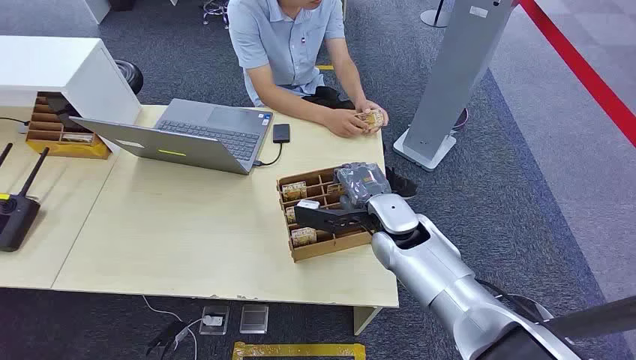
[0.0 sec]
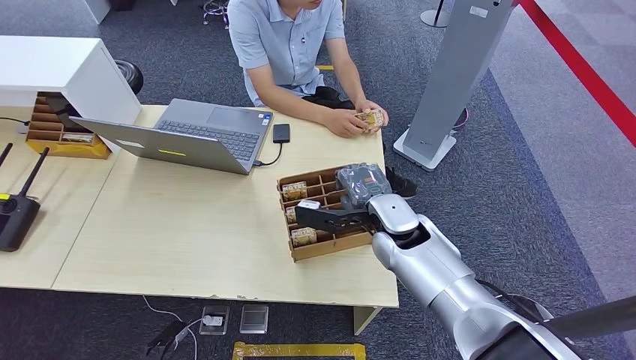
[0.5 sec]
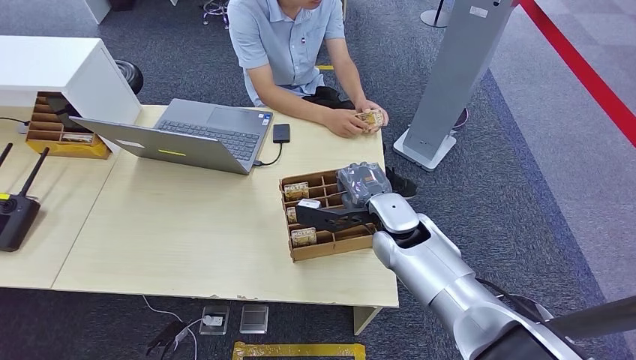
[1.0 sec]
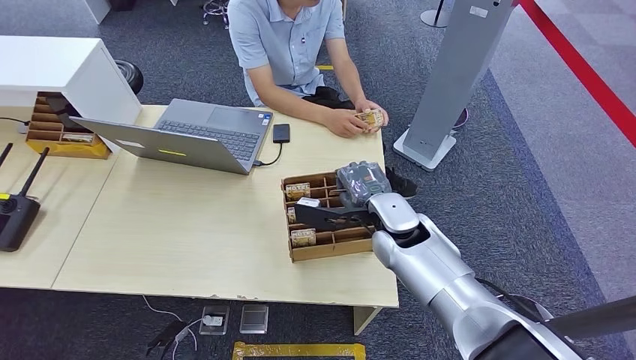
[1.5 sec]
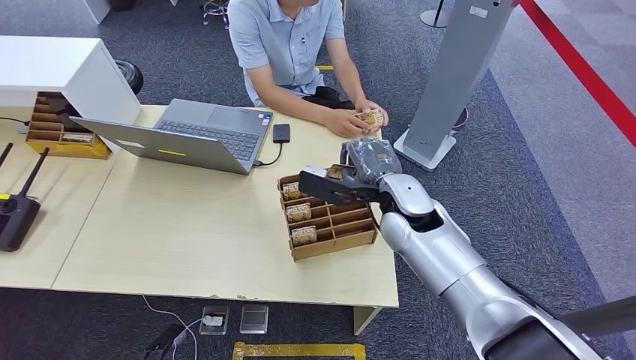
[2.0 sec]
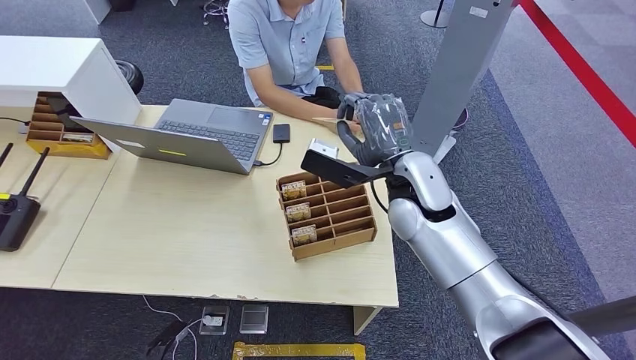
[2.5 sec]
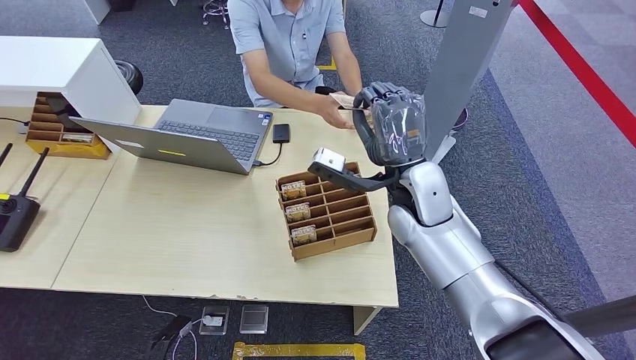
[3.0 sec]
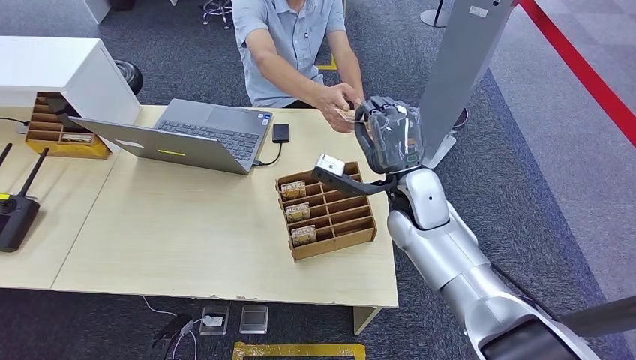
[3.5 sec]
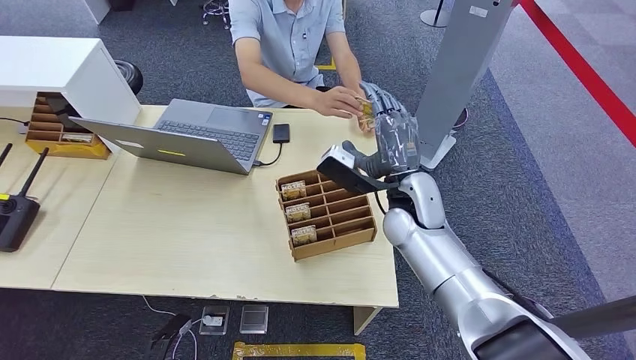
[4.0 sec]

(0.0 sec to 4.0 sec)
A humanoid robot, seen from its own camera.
Step, 0.0 sec - 2.0 sec: Pick up the room card from the card holder.
Step, 3.0 sec - 4.0 sec: Hand the room card to the target.

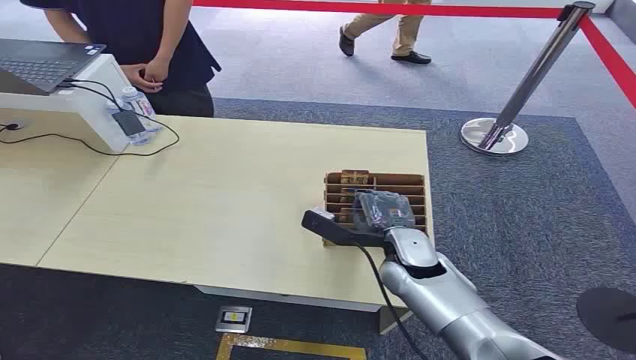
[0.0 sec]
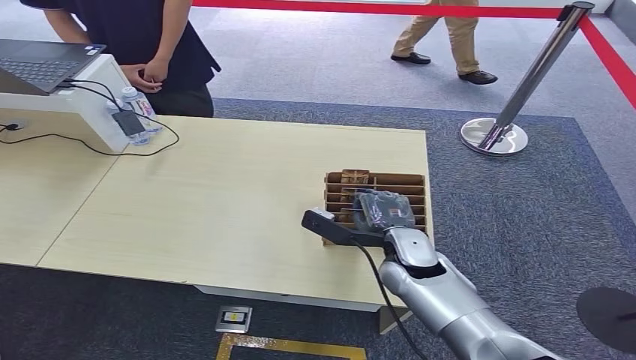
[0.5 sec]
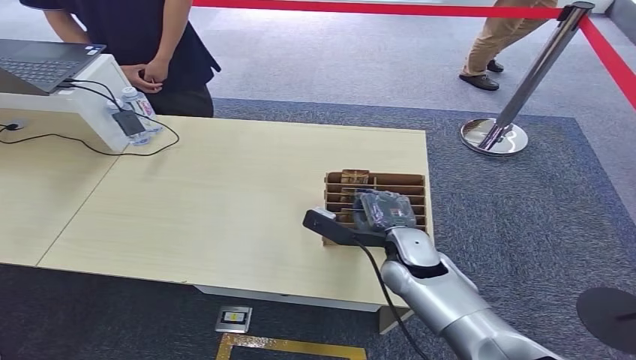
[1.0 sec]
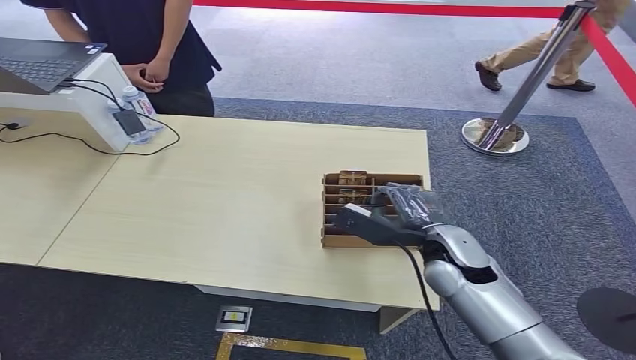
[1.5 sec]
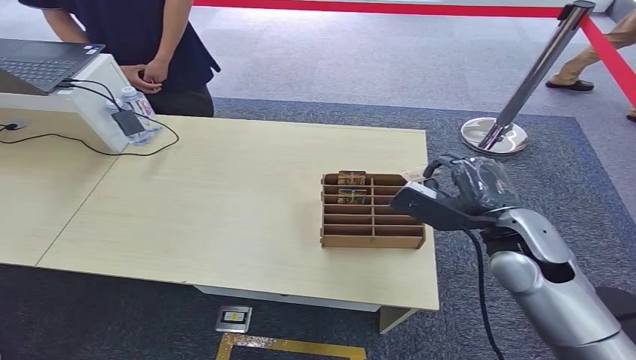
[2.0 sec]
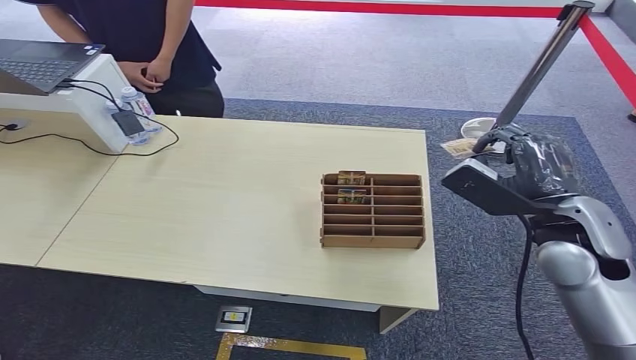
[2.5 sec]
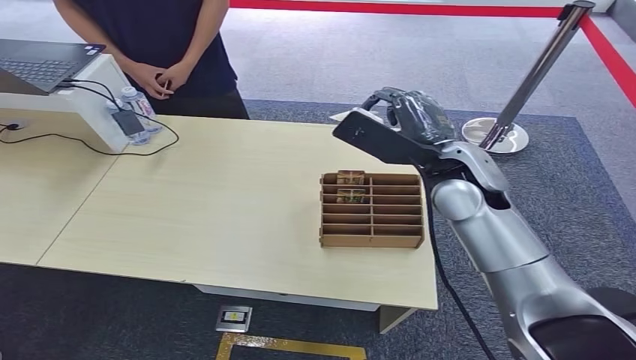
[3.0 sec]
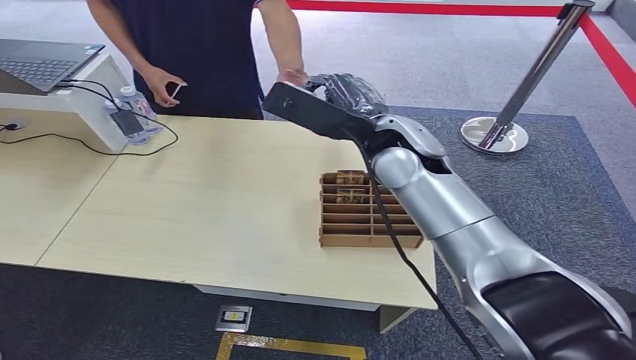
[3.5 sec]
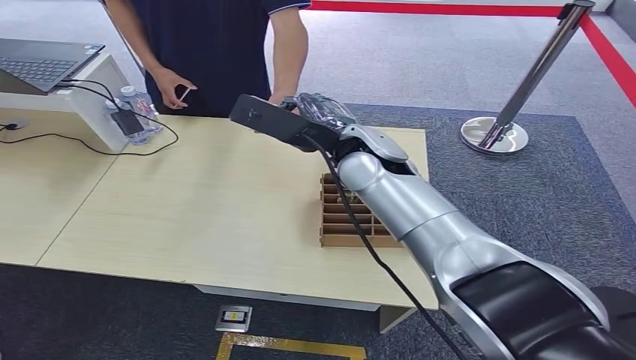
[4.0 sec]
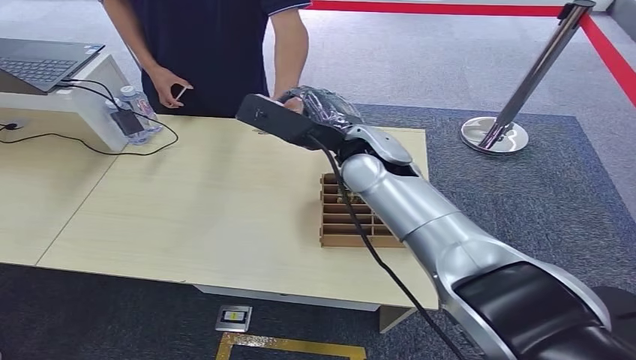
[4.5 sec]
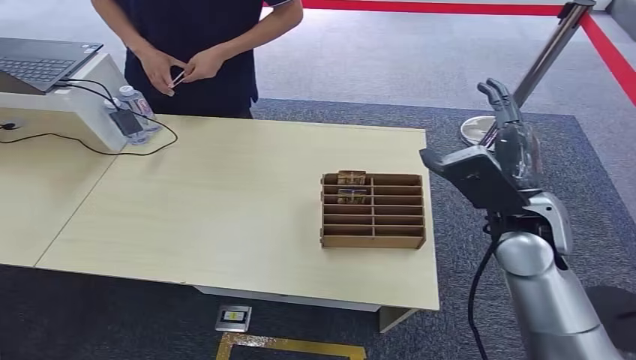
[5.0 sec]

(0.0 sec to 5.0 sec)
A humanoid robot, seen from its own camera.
Step, 0.0 sec - 2.0 sec: Pick up the room card from the card holder.
Step, 2.5 sec - 4.5 sec: Hand the room card to the target.
